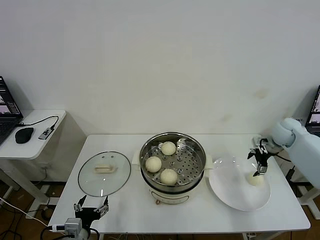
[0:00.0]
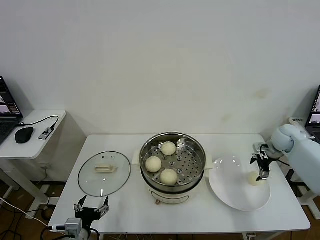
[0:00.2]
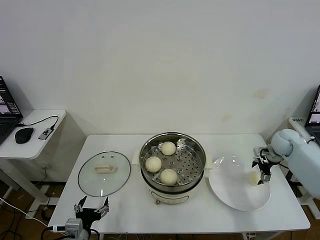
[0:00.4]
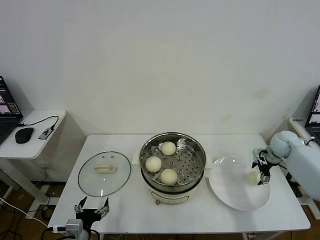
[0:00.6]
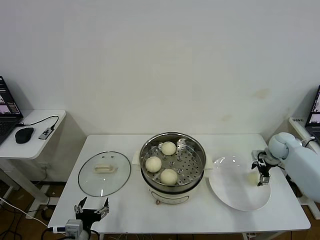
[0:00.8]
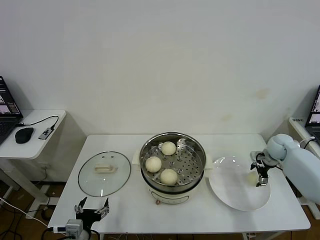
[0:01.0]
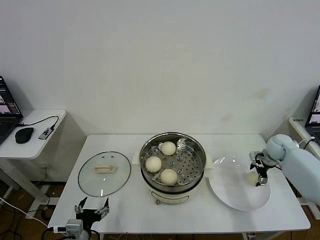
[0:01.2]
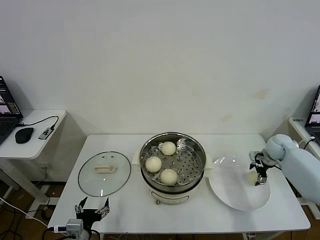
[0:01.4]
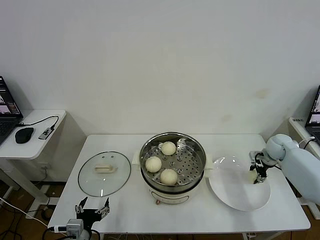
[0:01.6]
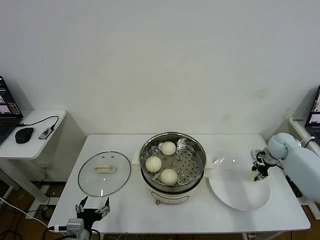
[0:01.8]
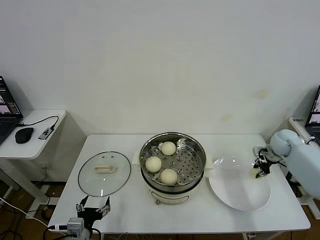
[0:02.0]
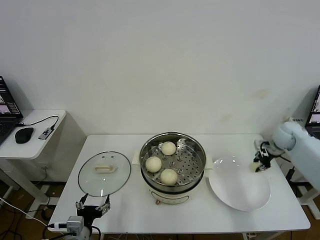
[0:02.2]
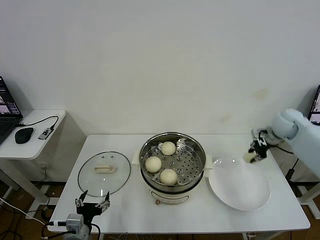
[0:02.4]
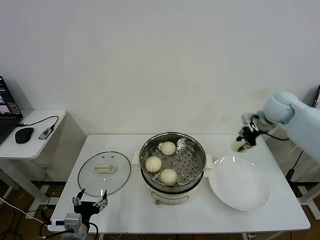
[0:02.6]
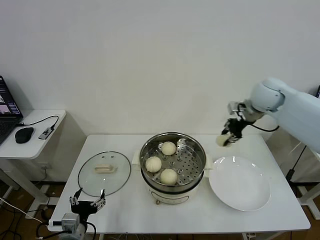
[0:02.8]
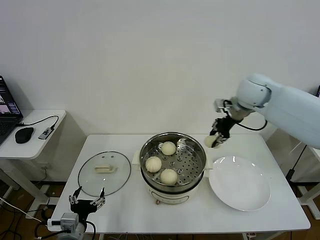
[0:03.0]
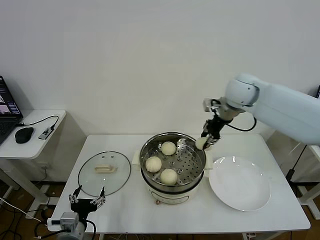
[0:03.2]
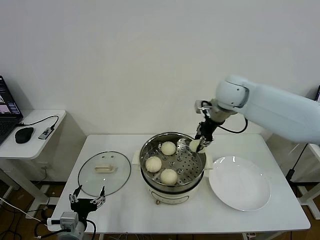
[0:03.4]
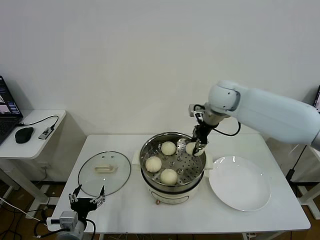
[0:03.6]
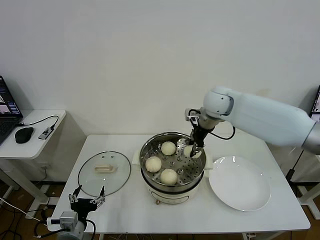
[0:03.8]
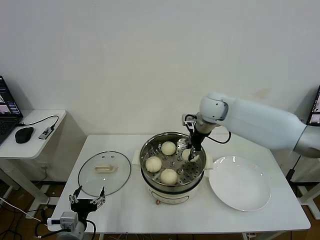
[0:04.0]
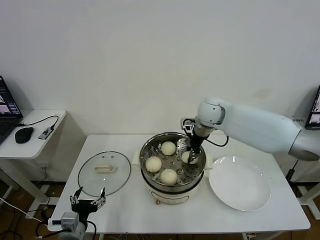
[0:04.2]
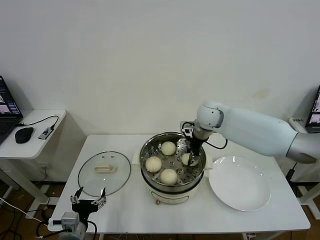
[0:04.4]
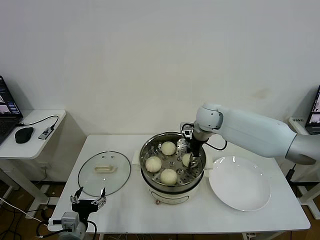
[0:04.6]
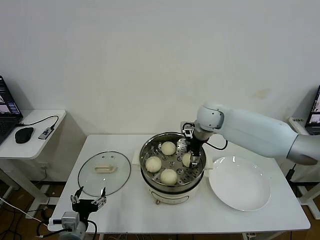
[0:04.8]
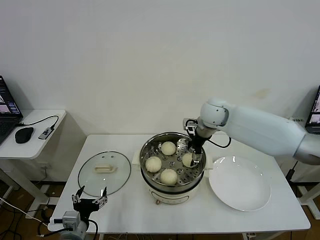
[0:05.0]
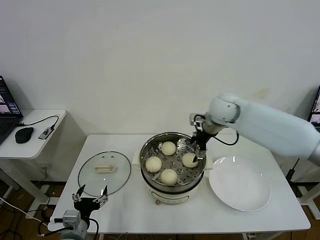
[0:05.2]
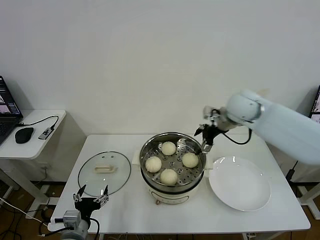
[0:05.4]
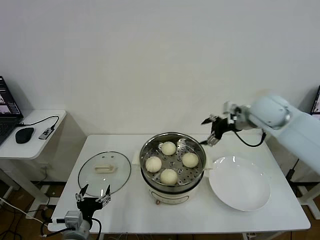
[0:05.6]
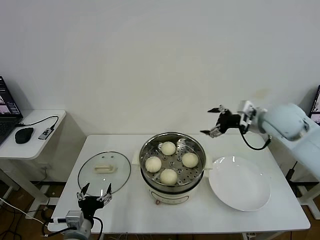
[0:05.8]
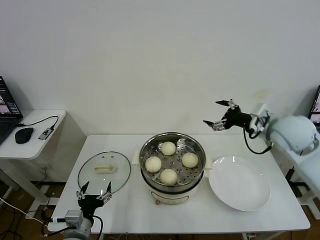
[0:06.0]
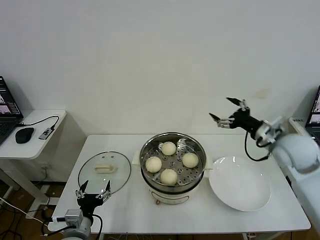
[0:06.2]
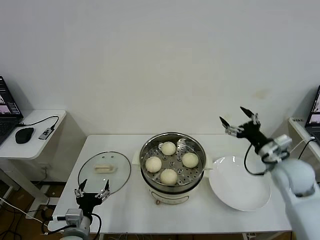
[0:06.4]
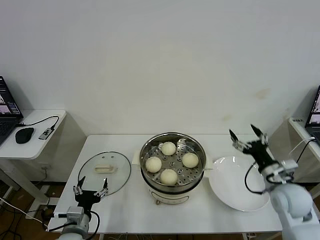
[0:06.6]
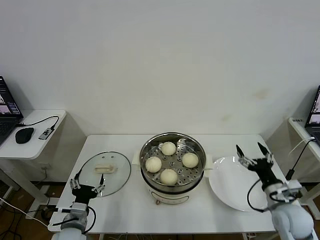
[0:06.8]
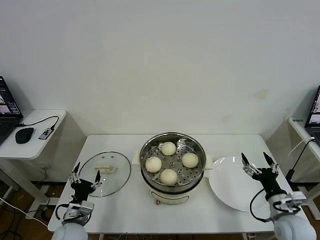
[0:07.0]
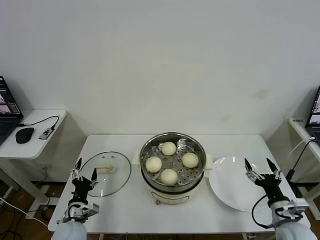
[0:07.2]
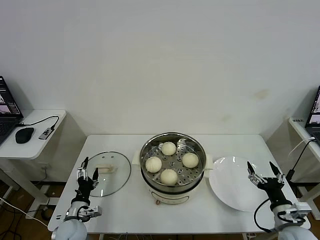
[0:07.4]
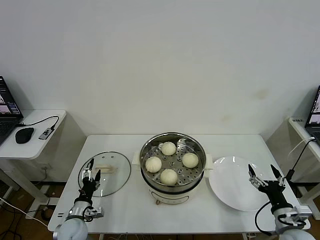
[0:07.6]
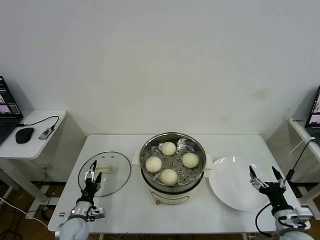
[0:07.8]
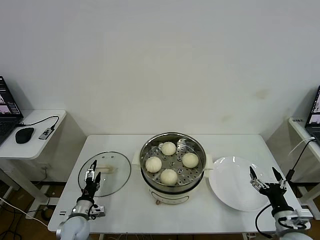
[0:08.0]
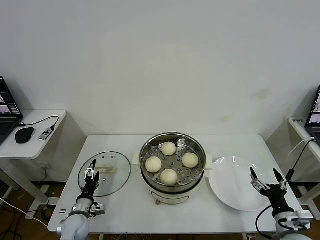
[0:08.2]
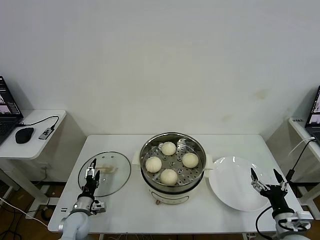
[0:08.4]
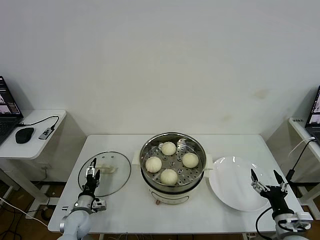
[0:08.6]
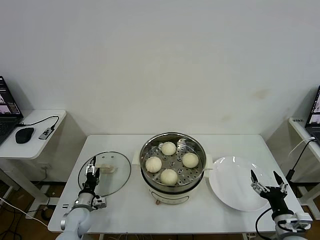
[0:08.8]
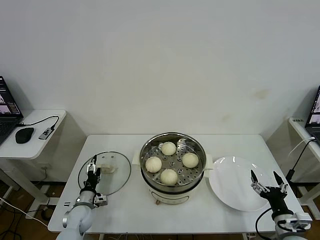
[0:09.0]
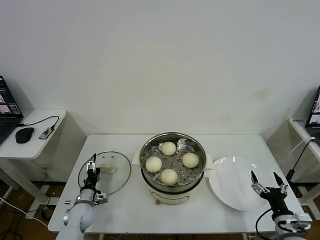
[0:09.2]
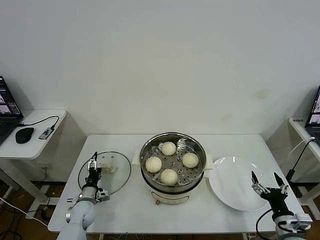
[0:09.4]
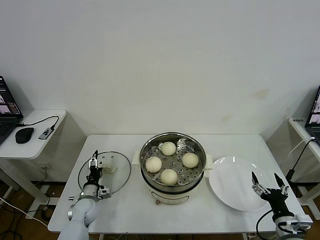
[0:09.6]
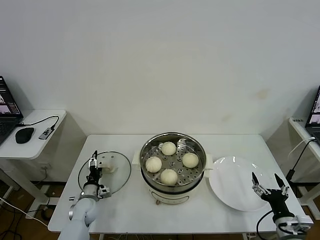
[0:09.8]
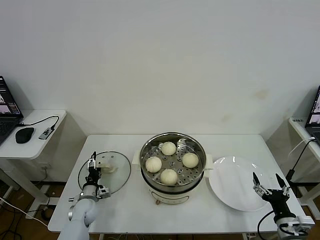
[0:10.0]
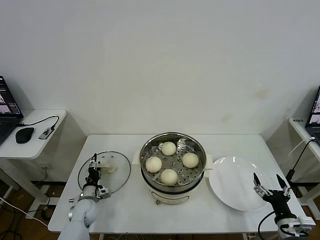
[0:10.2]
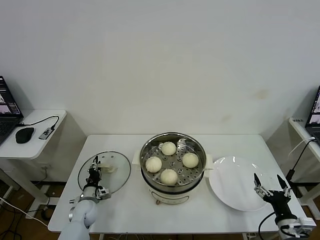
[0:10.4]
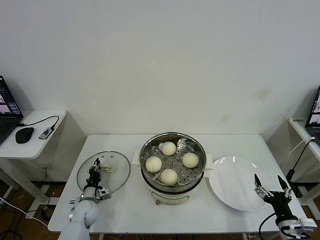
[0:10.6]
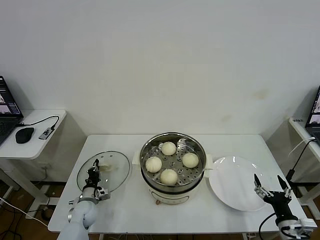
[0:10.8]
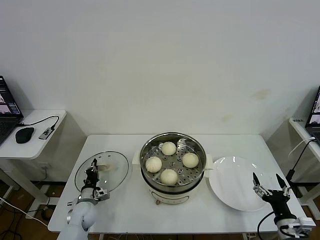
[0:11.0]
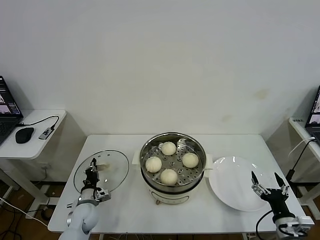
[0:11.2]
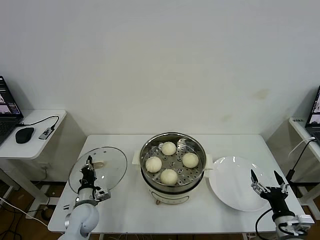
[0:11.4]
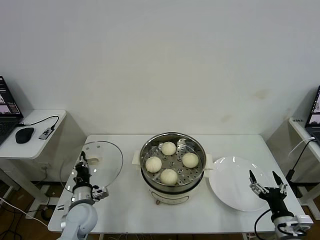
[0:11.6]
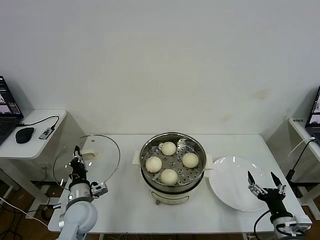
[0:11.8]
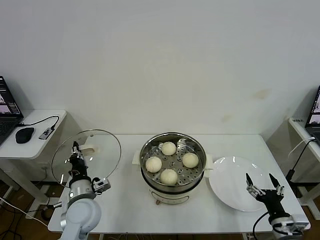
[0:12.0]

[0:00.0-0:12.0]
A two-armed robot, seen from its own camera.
Task of the whole recording: take steamed baozi put them in steamer then cover it.
Step, 0:00.0 to 0:01.8: Grasp the baozi in the plate with right gripper.
Step, 0:02.0 to 0:05.2: Place the baozi on the steamer with right gripper.
Step, 0:05.4 to 0:10.8: Grasp the pot lid with left gripper.
0:00.0 to 0:01.6: The right gripper heads downward, covering roughly 5 cm, and closes.
0:01.6 to 0:03.0: The right gripper shifts some 30 cm upward and to the left, and closes up.
0:03.0 to 0:04.4: The right gripper heads downward and to the left, covering about 15 cm.
0:04.4 to 0:06.0: The right gripper heads to the right and backward, covering some 25 cm, and opens.
0:06.0 to 0:07.6: The left gripper moves downward, forward and to the left, roughly 15 cm, while the right gripper is displaced downward and backward by roughly 30 cm.
0:07.6 to 0:09.0: The left gripper goes about 5 cm forward.
0:09.0 to 0:10.4: The left gripper closes its fingers.
0:10.4 to 0:12.0: The left gripper travels upward and to the right by approximately 20 cm, and closes its fingers.

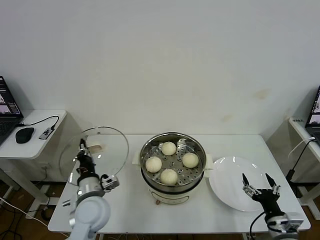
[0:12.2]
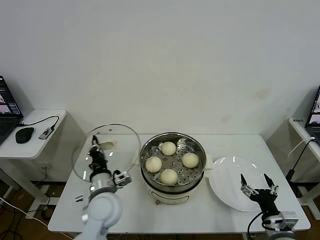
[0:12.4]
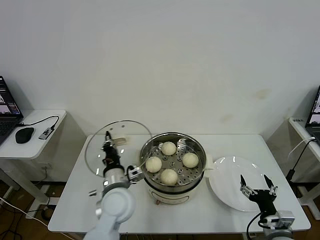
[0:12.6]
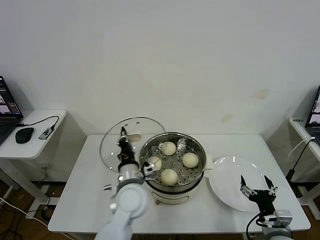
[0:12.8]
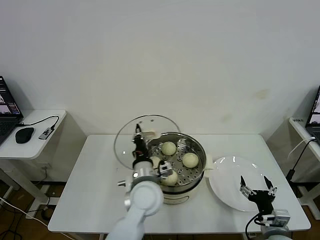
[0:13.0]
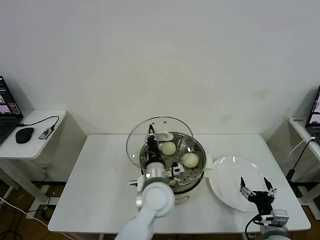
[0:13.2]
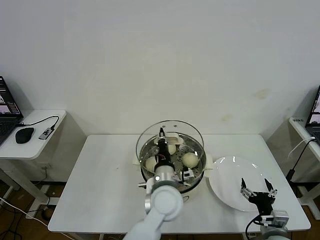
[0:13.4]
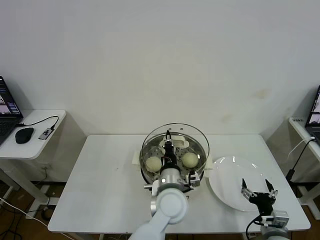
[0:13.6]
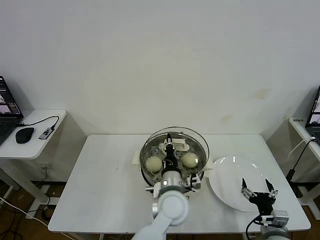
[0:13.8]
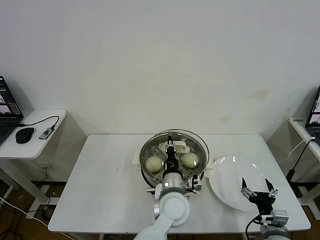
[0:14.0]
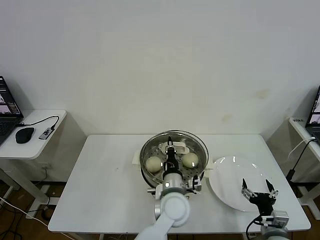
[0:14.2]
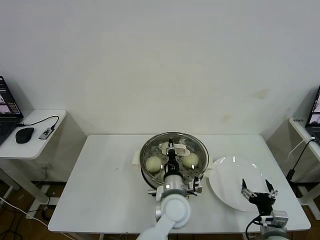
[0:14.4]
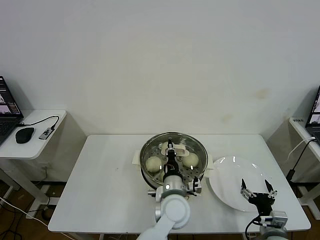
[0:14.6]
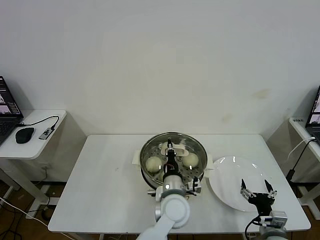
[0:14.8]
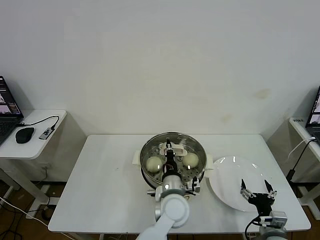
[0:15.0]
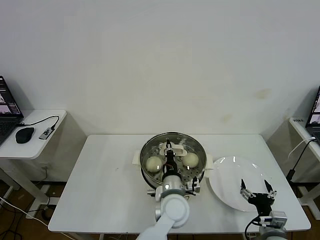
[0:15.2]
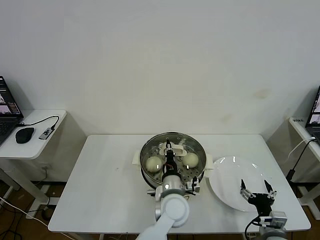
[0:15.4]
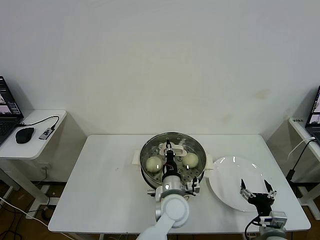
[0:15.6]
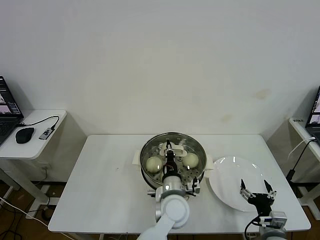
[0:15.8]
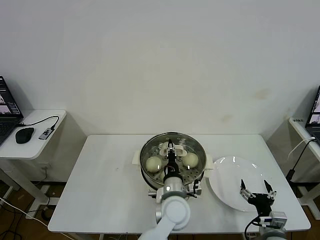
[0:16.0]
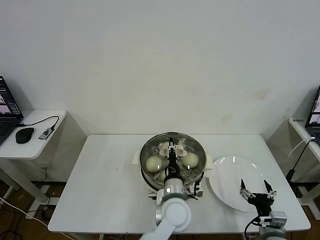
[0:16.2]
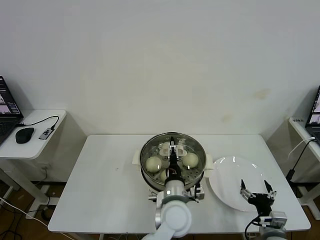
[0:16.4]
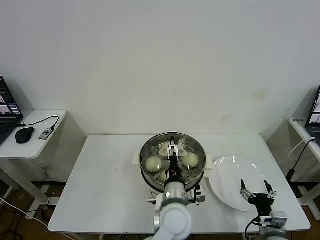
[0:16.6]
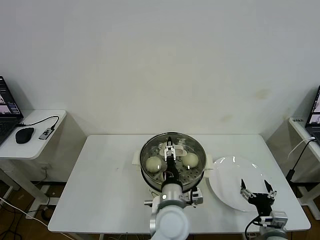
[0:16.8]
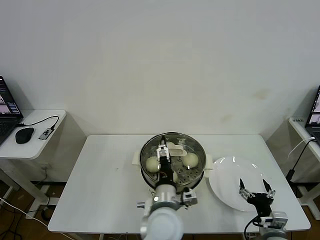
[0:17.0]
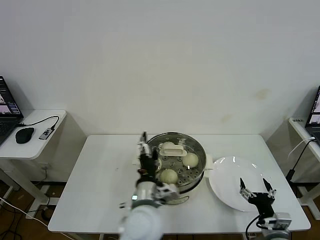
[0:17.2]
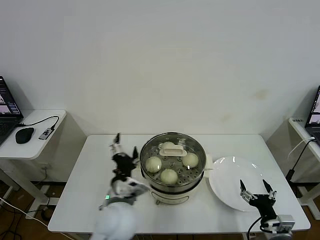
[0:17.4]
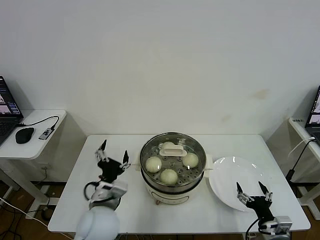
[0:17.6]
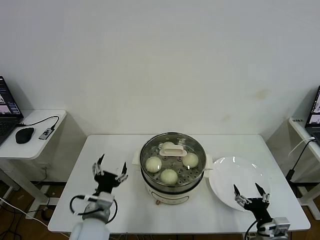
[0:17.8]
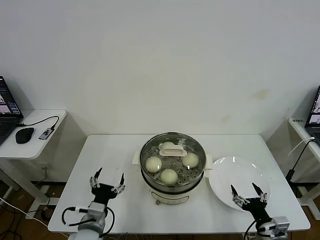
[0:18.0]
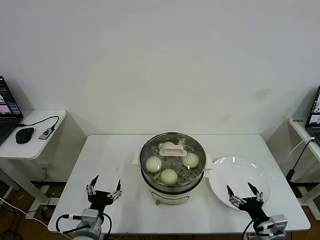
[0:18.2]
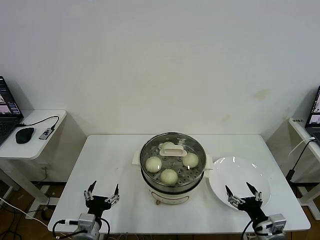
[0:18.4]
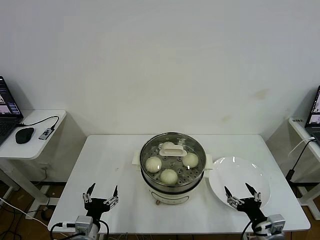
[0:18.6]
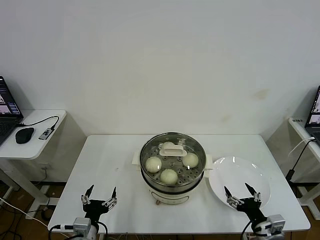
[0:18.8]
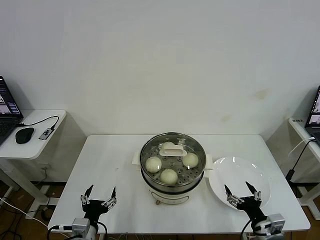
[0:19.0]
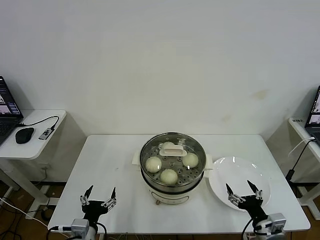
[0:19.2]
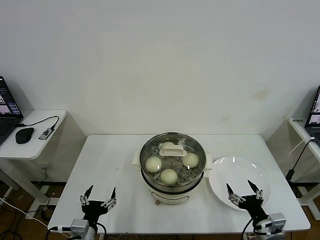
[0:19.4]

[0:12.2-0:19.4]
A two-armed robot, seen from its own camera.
Task of the whole recording: take steamed baozi put them in steamer then cover it.
Step, 0:12.2 to 0:16.8: Place the pot lid on the steamer with left gripper.
0:12.2 to 0:13.6: The left gripper moves to the right, some 25 cm.
0:13.6 to 0:15.0: There are only small adjustments of the grippers.
0:15.0 to 0:16.6: The left gripper opens its fingers.
0:16.6 to 0:18.0: The left gripper is displaced to the left by some 25 cm.
0:18.0 to 0:19.4: The left gripper changes place by some 5 cm.
